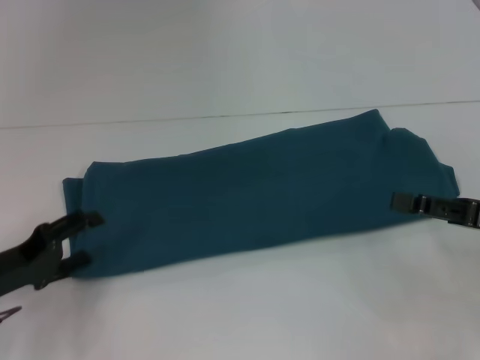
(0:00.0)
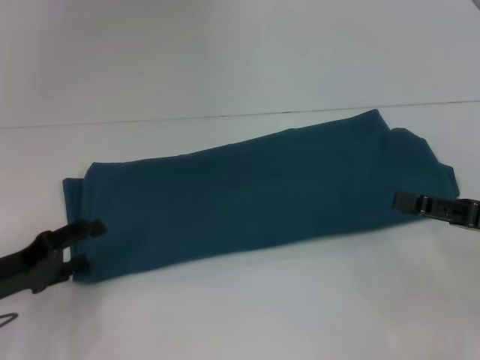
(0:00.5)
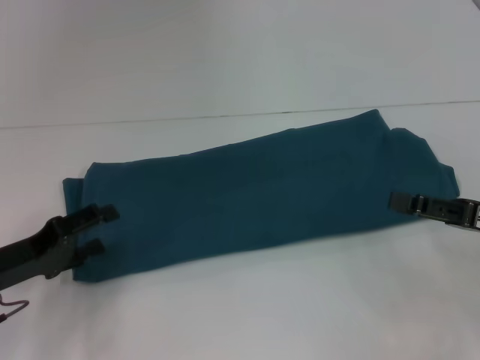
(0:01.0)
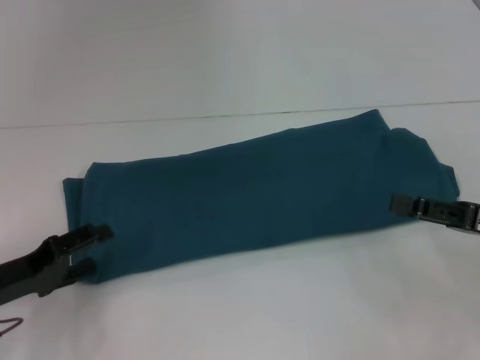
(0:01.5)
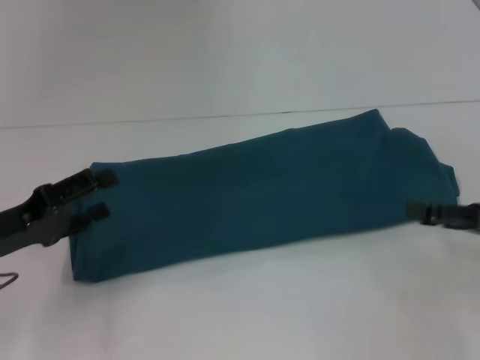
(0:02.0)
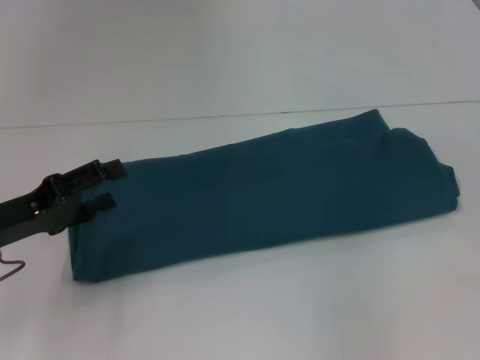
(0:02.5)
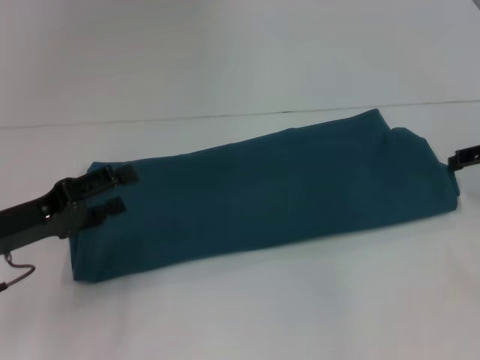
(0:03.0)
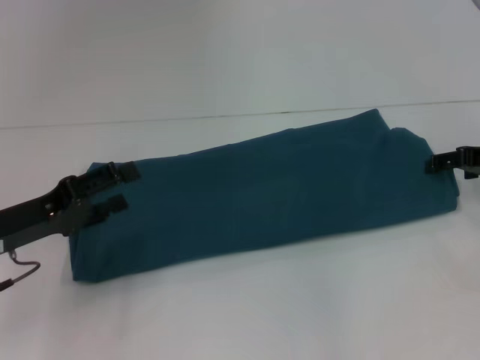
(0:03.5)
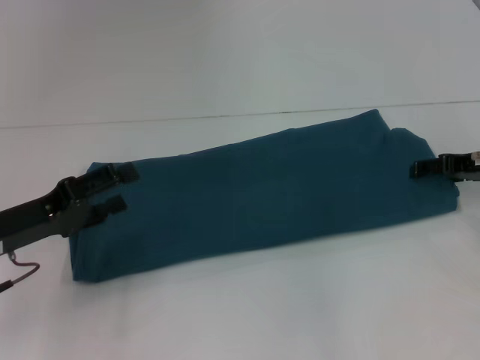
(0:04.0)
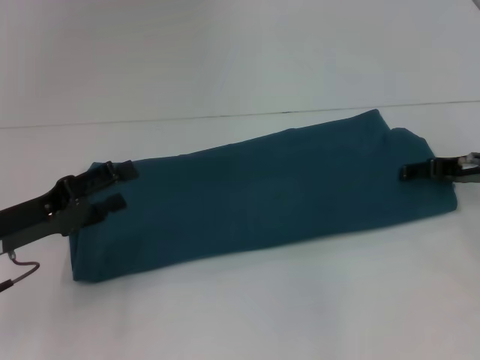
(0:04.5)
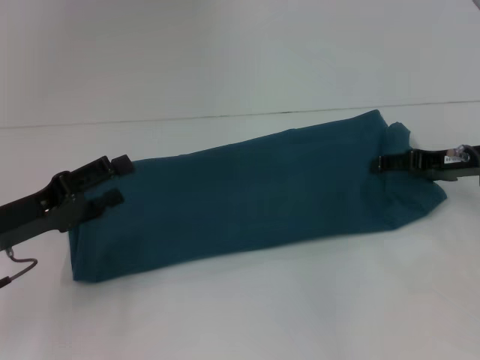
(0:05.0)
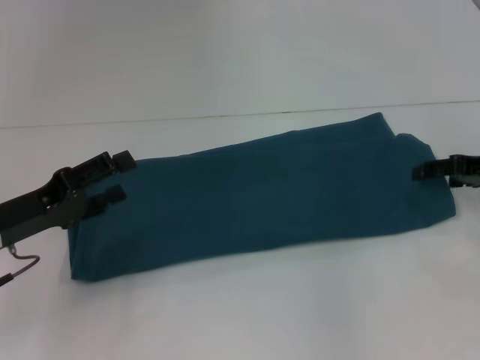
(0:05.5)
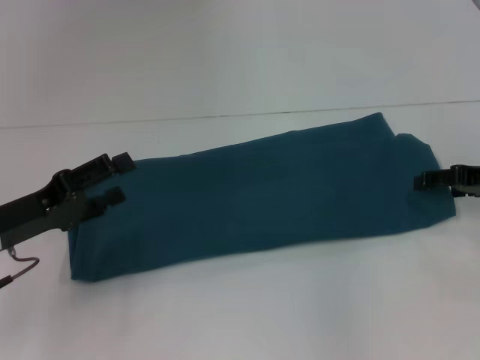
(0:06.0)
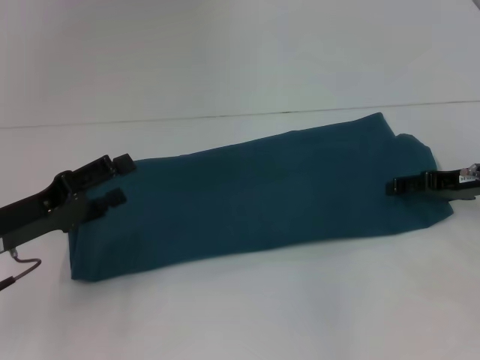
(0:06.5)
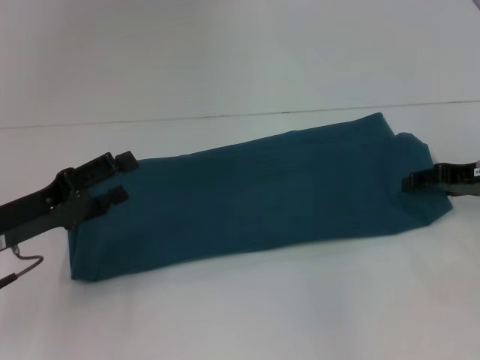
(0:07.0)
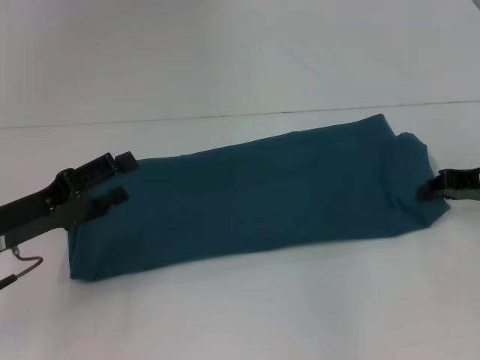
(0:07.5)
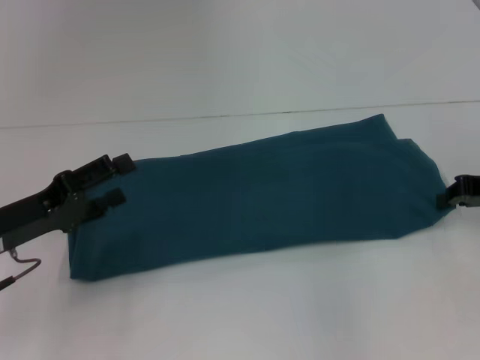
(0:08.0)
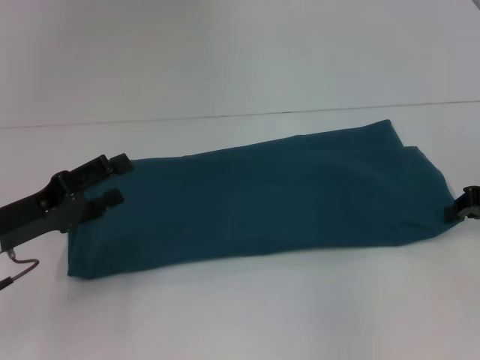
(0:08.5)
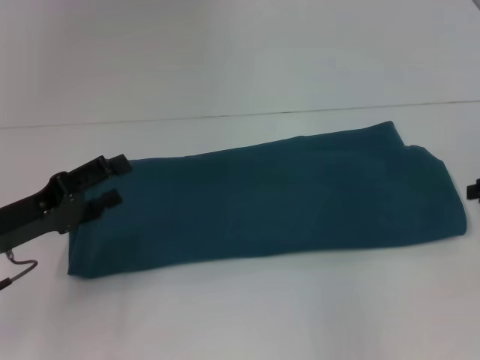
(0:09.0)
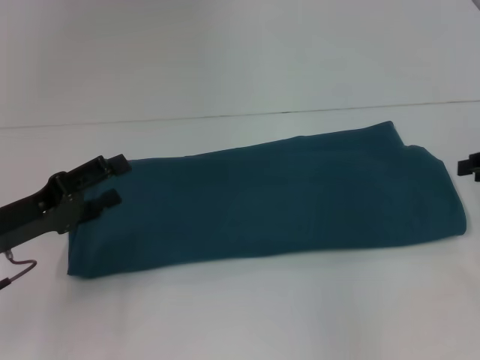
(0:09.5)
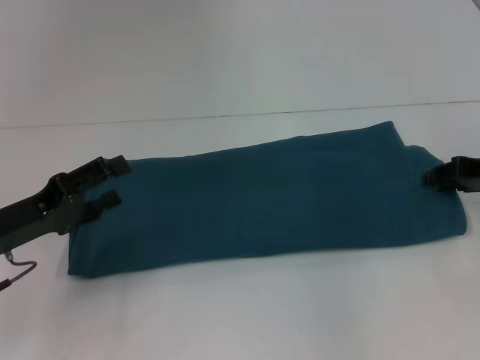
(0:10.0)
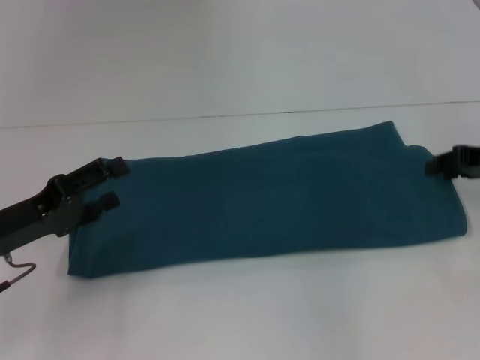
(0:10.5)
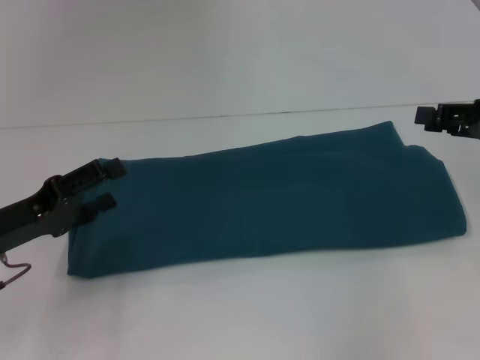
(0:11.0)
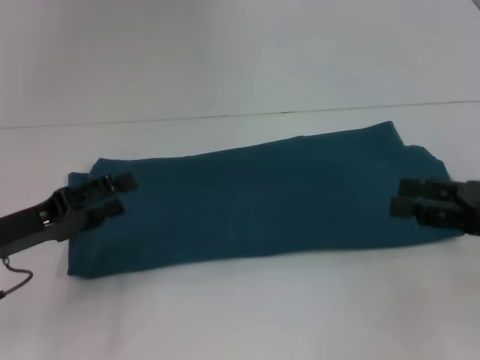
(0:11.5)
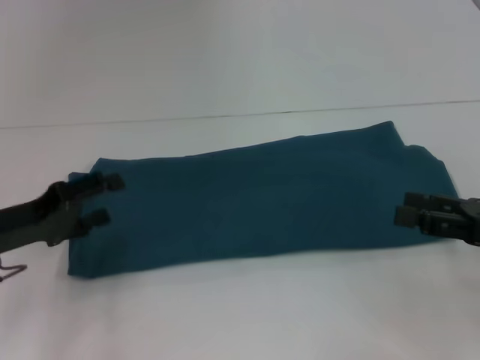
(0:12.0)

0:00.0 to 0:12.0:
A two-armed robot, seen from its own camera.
0:00.0 to 0:02.0: There are only small adjustments of the grippers.
0:02.0 to 0:04.0: The right gripper moves forward, approximately 10 cm.
0:04.0 to 0:06.0: The grippers stay close to where they were, moving slightly.
0:06.0 to 0:08.0: The right gripper closes up.
0:08.0 to 0:10.0: The right gripper opens its fingers.
0:10.0 to 0:12.0: The right gripper shifts about 10 cm backward, and opens.

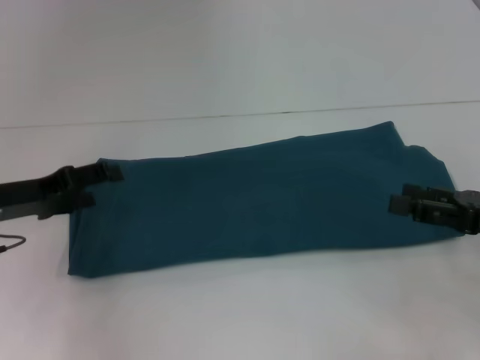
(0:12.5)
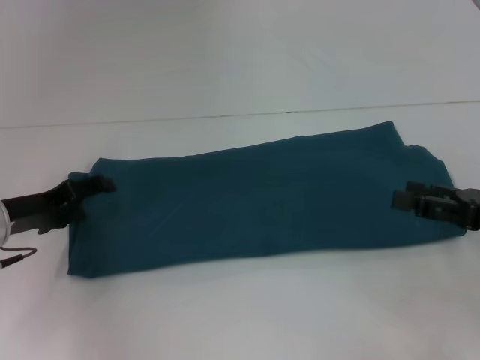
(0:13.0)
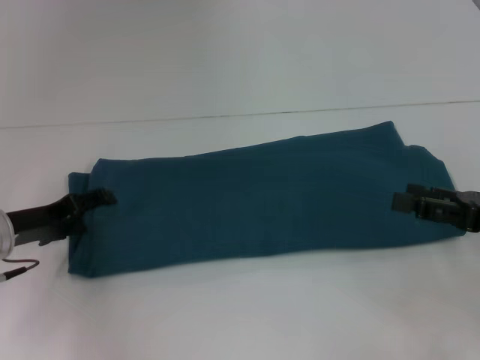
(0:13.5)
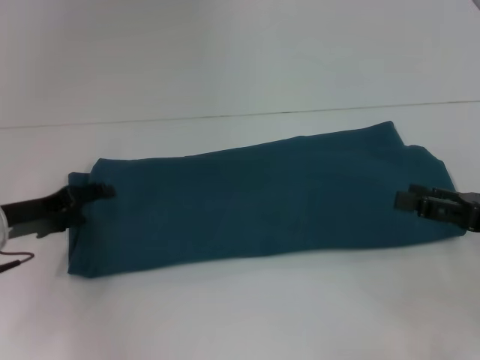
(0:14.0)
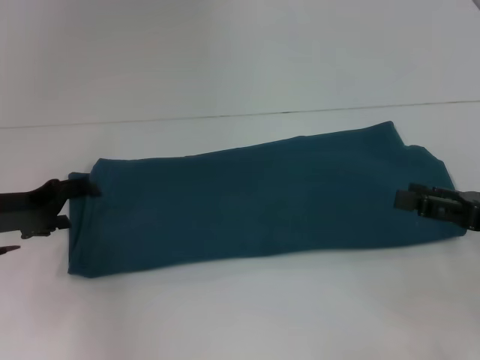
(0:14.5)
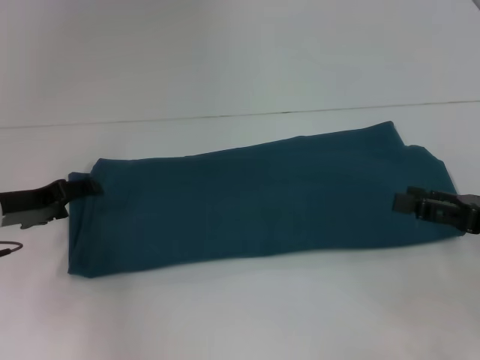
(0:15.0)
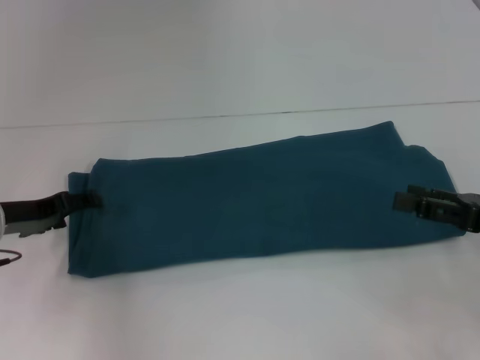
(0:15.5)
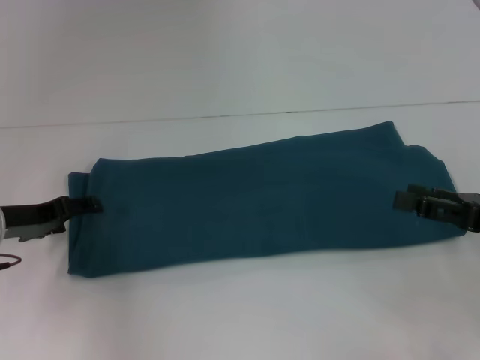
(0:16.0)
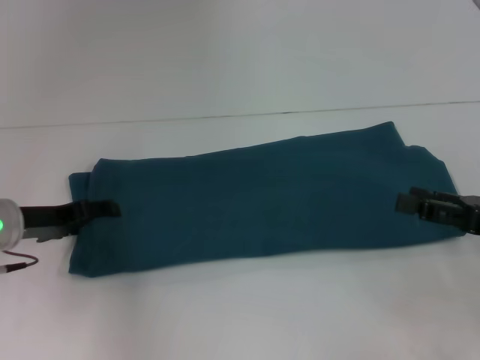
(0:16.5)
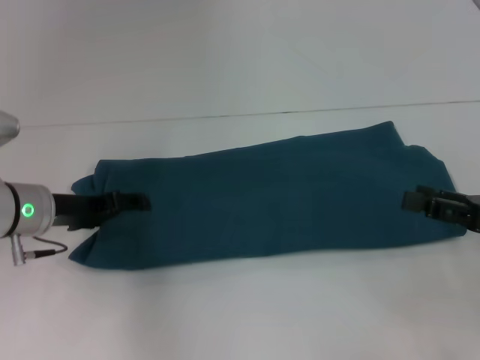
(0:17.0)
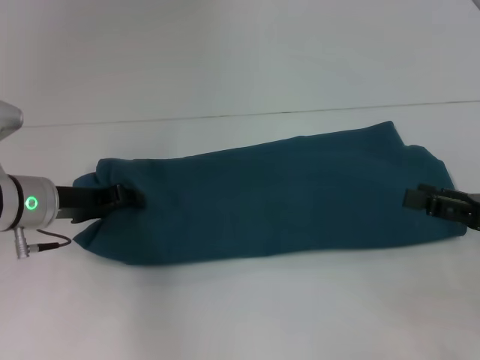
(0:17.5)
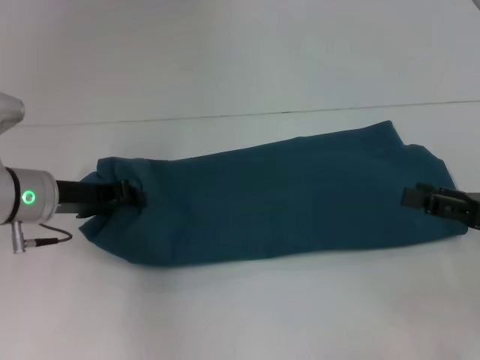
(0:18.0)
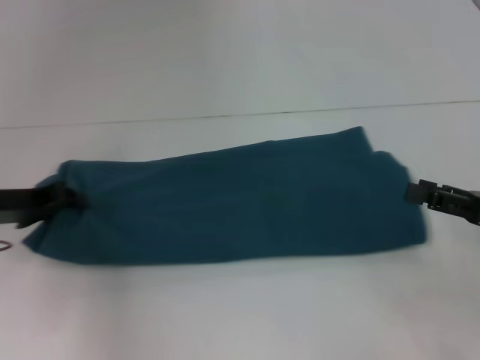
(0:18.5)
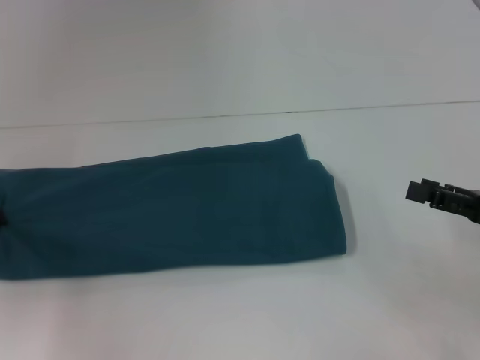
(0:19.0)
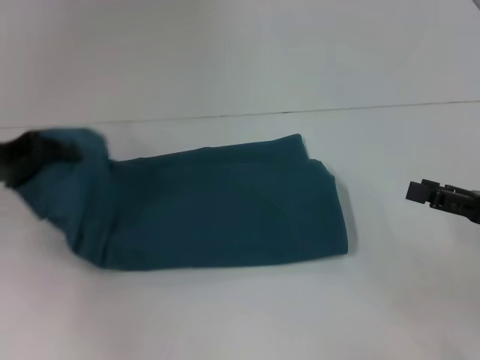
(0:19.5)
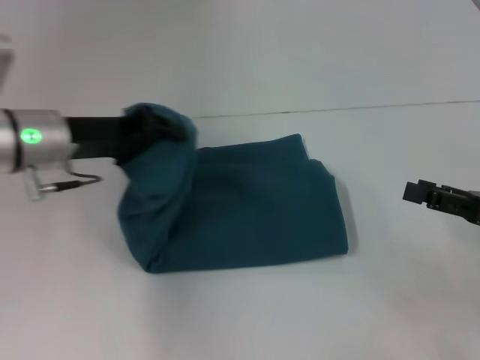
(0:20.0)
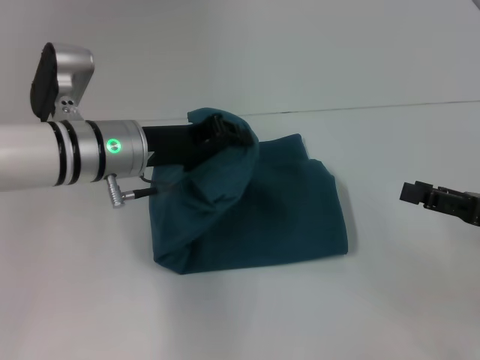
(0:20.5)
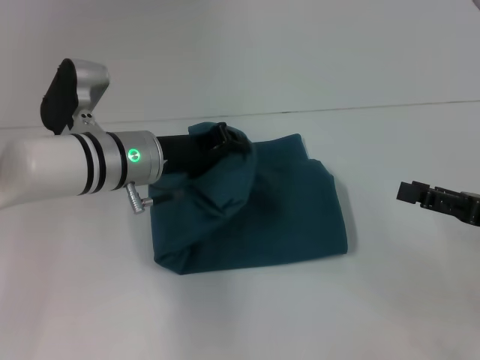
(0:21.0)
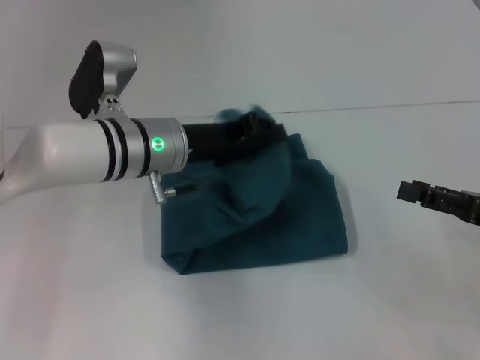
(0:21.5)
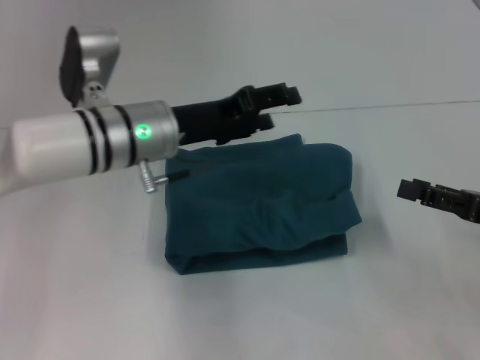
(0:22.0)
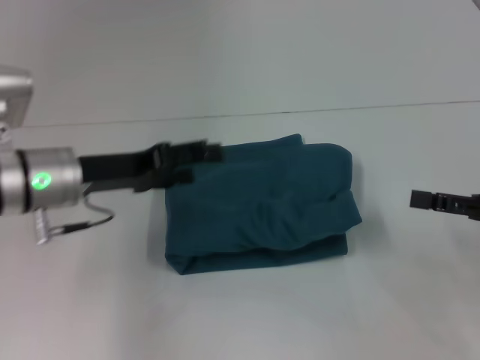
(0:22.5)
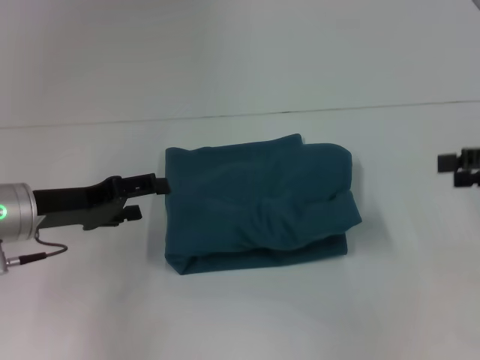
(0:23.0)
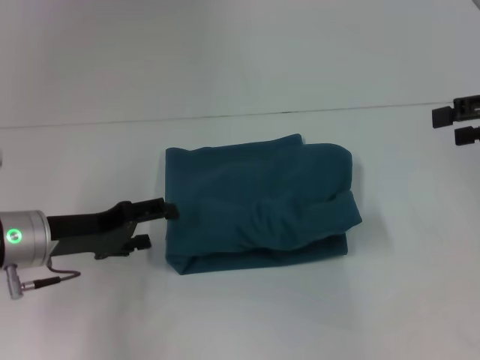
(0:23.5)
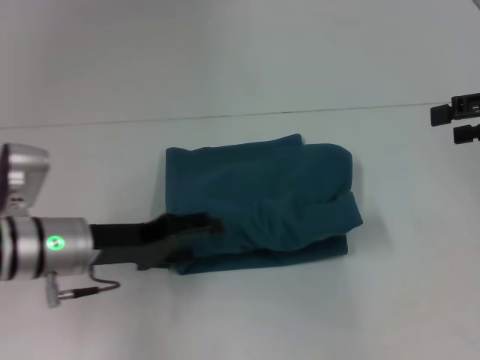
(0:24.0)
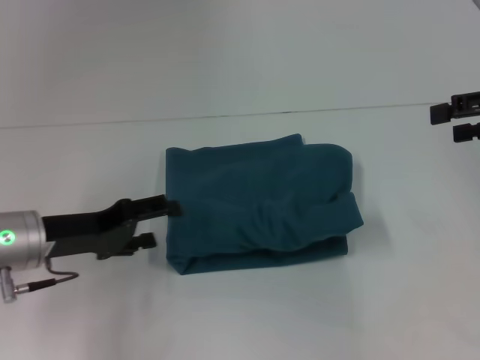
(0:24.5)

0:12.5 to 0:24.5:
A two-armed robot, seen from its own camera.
Step, 0:12.5 to 0:21.5: Fold the clothes to the left.
0:12.5 to 0:16.5: There are only small adjustments of the grippers.
0:16.5 to 0:18.5: The left gripper closes.
0:18.5 to 0:20.5: The left gripper goes roughly 15 cm to the right.
0:20.5 to 0:22.5: The left gripper heads to the left, covering roughly 5 cm, and opens up.
0:22.5 to 0:24.5: The left gripper ends up roughly 5 cm from where it was, while the right gripper is displaced upward and forward by roughly 15 cm.

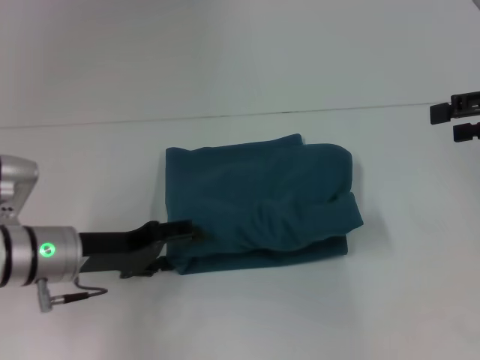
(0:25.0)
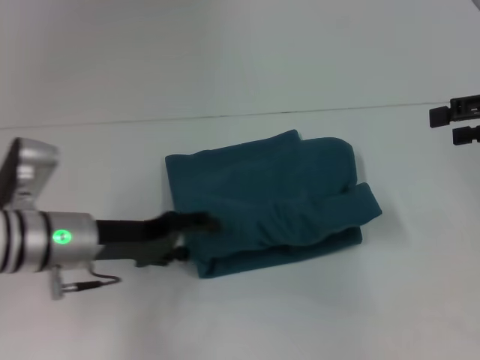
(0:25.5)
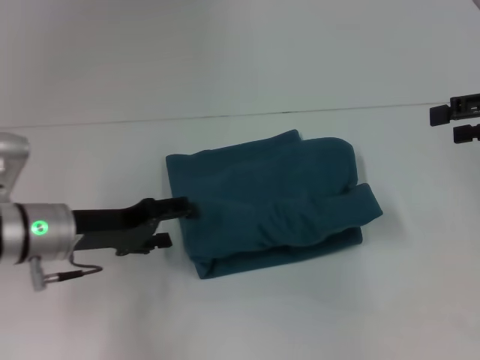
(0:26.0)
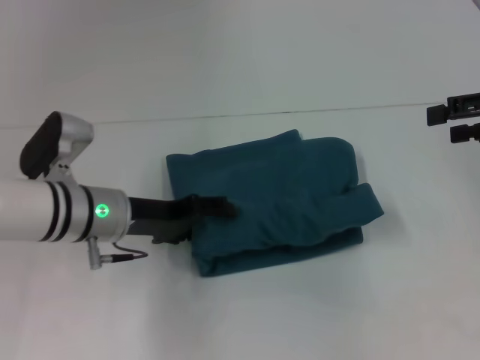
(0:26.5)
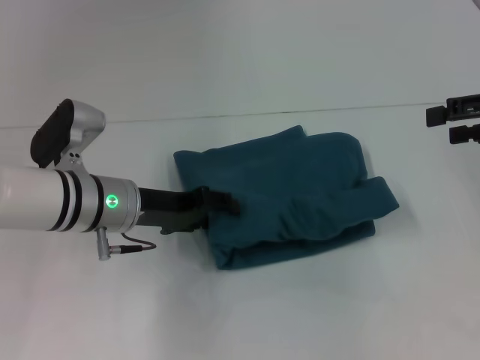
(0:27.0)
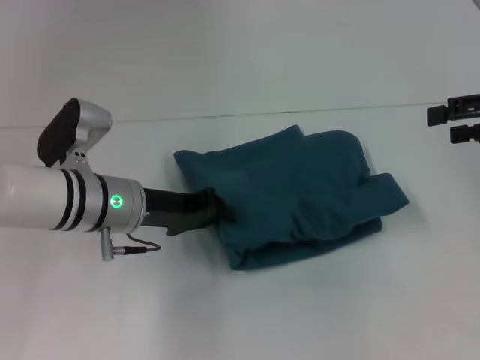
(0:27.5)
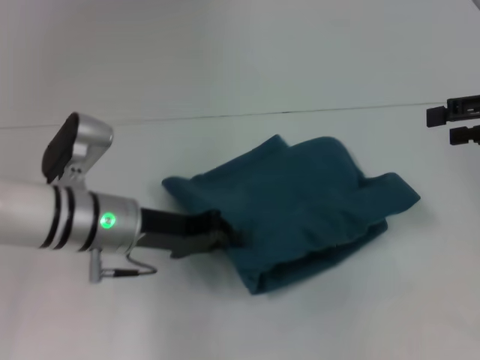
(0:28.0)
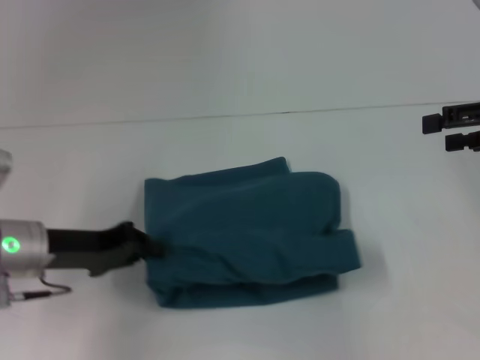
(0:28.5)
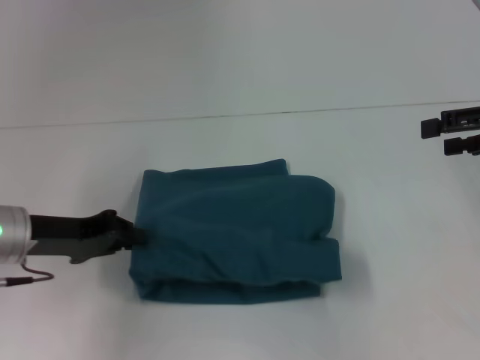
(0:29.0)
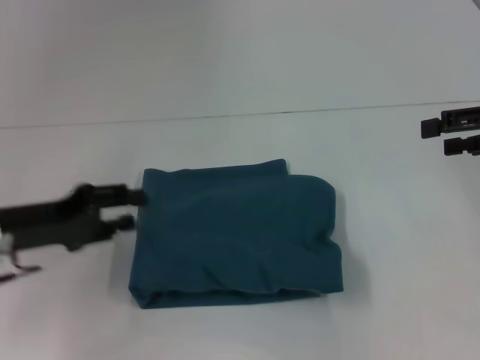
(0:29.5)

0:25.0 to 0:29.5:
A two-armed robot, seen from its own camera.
0:25.0 to 0:27.0: The left gripper moves to the right, about 5 cm.
0:27.0 to 0:29.5: The left gripper travels to the left and backward by approximately 15 cm, and closes up.
